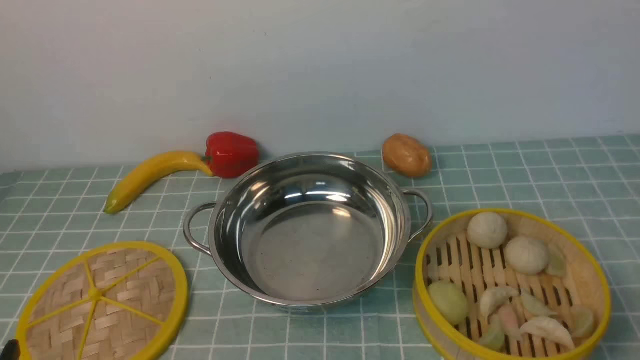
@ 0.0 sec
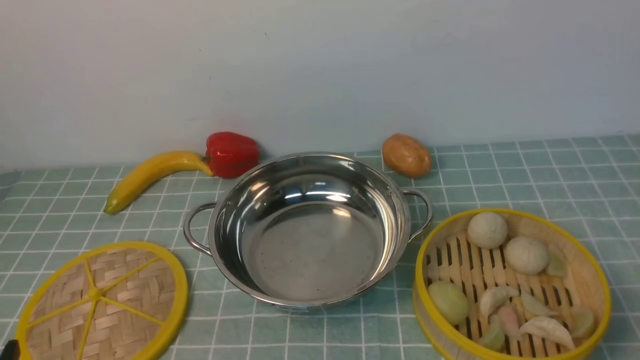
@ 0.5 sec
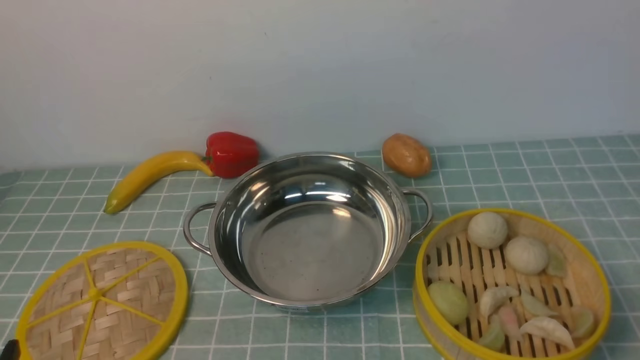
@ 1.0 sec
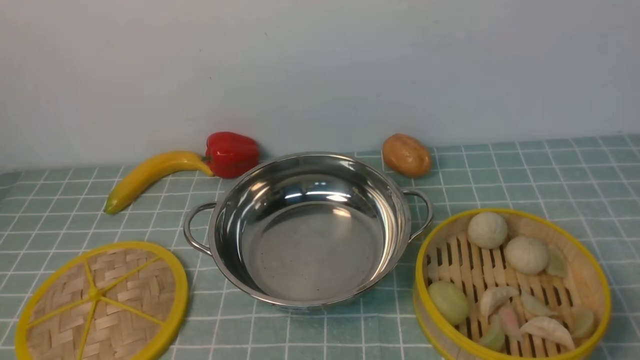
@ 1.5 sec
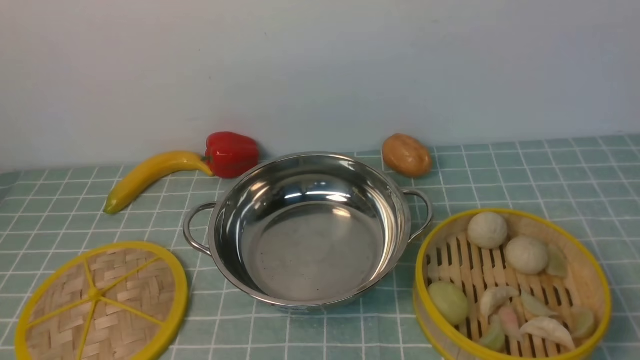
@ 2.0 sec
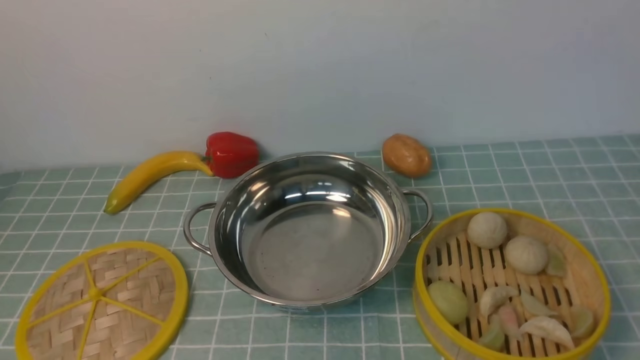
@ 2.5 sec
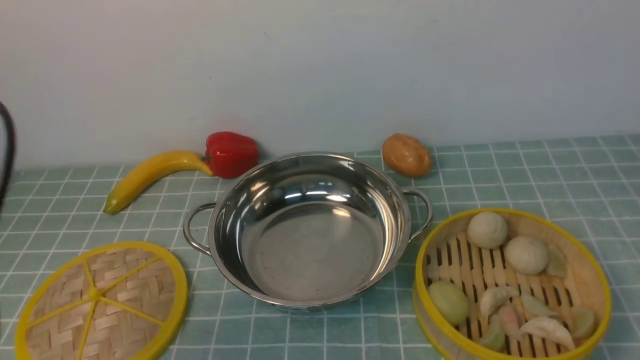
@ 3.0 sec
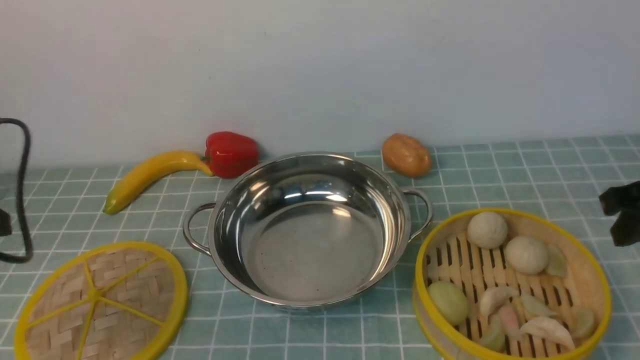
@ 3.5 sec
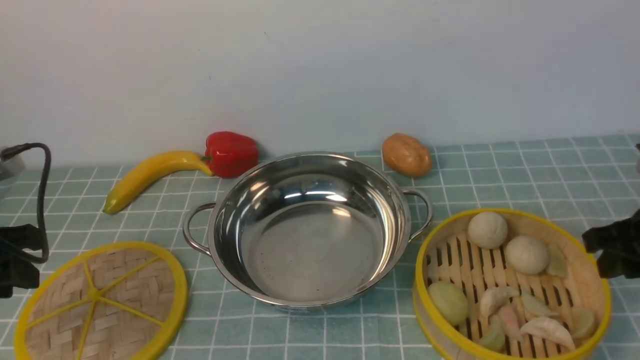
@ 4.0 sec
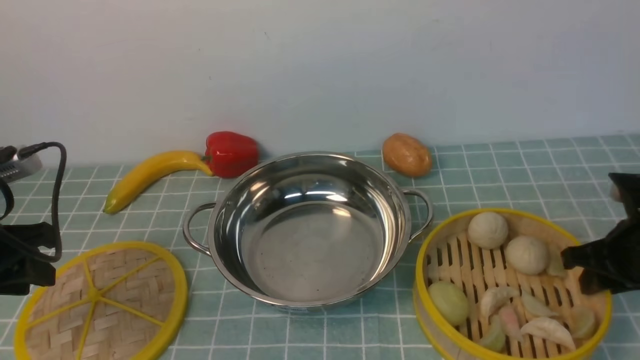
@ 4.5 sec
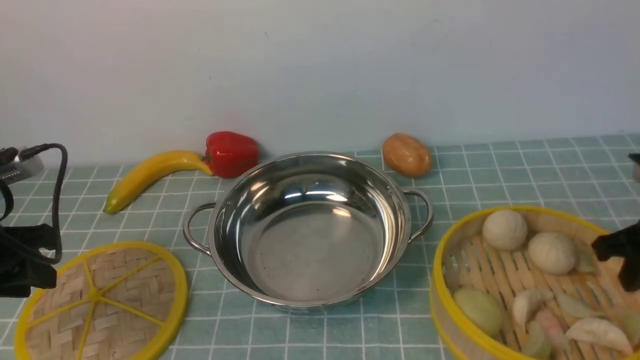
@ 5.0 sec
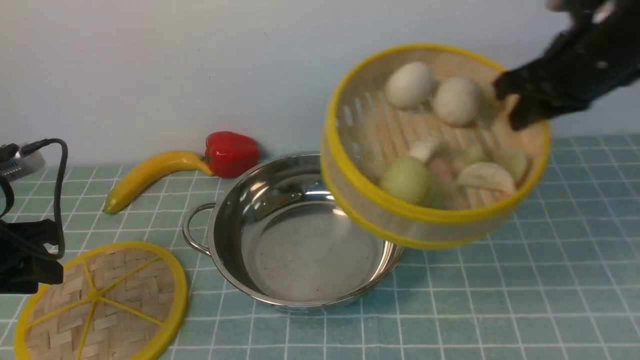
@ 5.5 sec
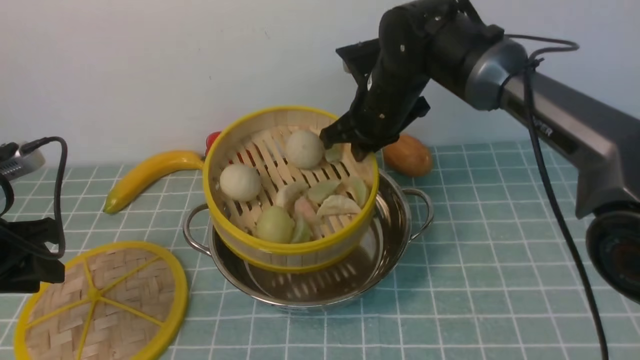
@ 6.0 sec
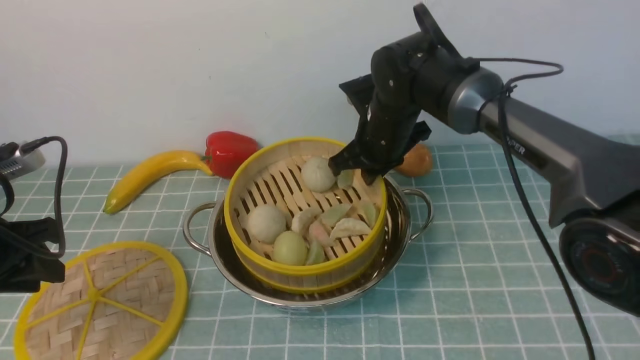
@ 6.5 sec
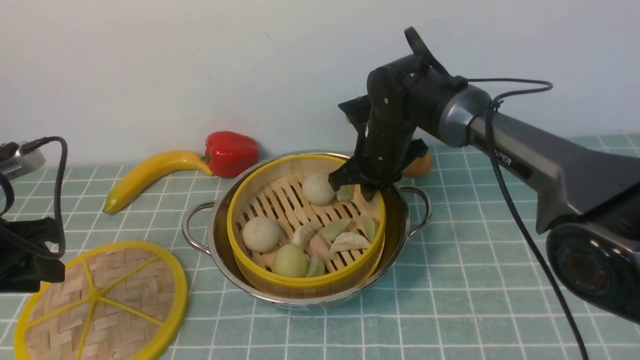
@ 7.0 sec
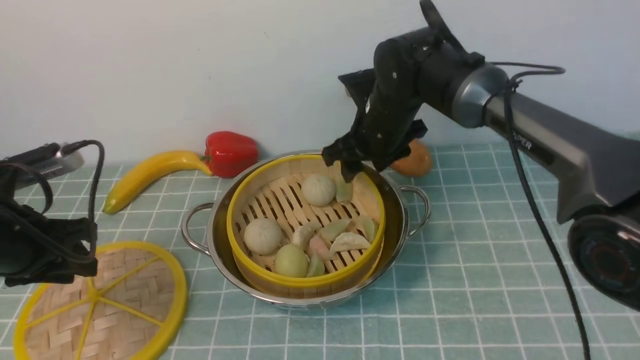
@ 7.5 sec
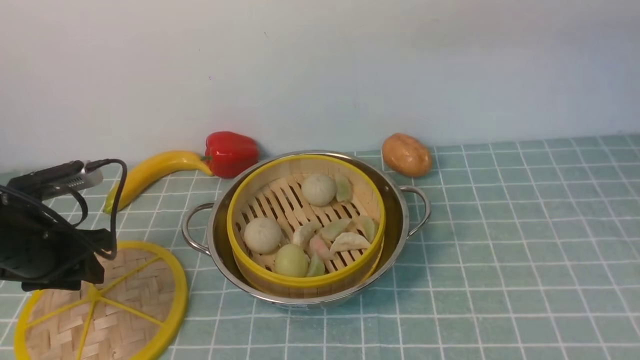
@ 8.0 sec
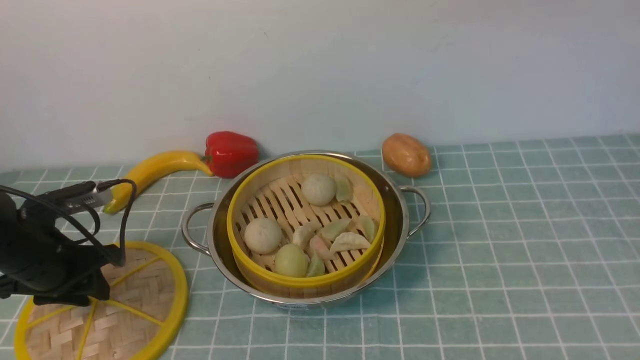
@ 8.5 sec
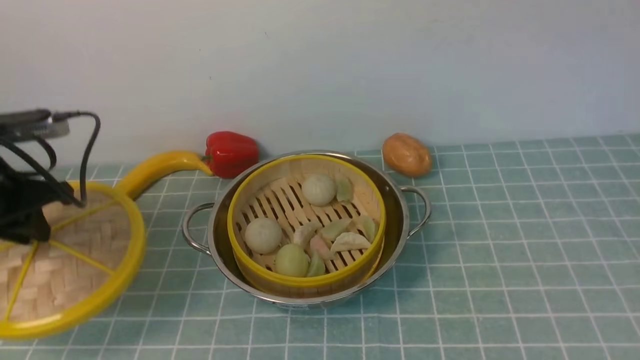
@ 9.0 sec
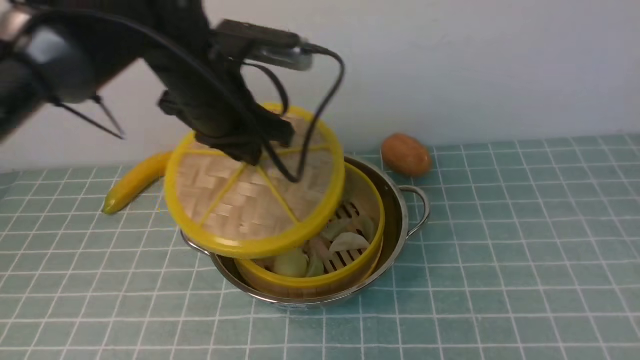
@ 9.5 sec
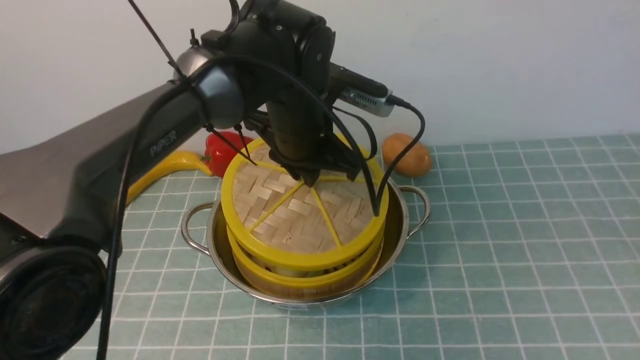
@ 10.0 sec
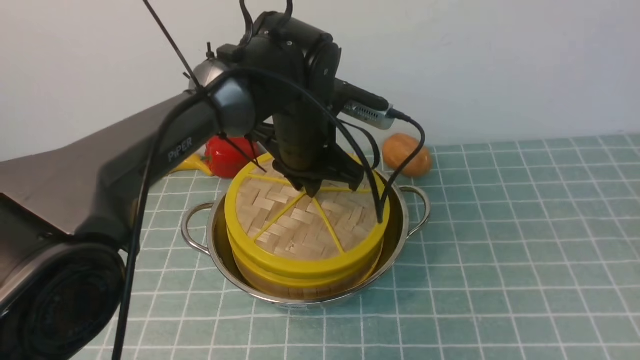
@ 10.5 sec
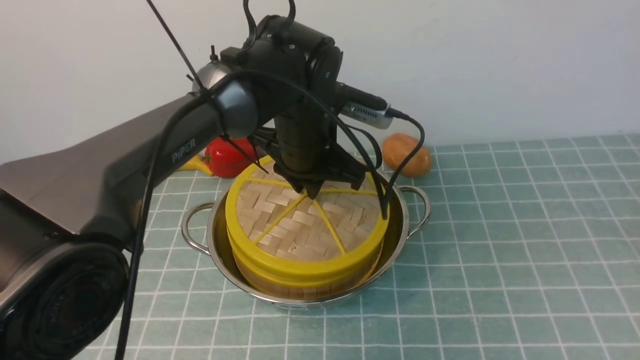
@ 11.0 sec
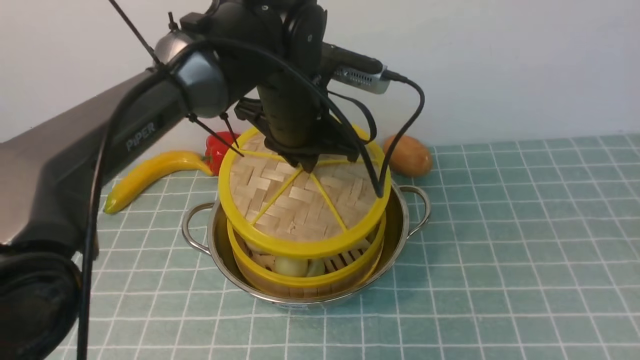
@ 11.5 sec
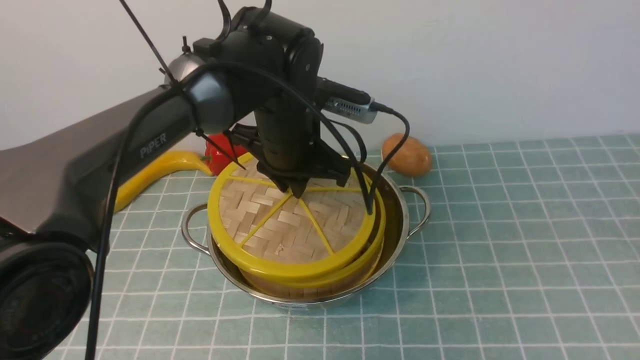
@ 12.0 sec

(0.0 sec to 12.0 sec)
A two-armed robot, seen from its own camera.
Task of the whole recording: place the steamer in the pot on the blue tablecloth, and put the lid on the steamer.
Step, 0.0 sec - 5.0 sec: use the right arm to lift the steamer closest to it.
Step, 5.5 sec - 7.5 sec: use the right arm to put the steamer into the iron steamer pot in the middle.
Step, 8.0 sec - 9.0 sec: use the left arm to lift the lid of the steamer.
2.0 sec - 4.0 sec: The right gripper goes roughly 20 cm forward. The left gripper goes roughly 20 cm forward and to the left.
4.0 sec - 6.0 sec: The right gripper is displaced to the left and forward by some 30 cm, and closes.
6.0 sec - 8.0 sec: The left gripper shifts by about 5 cm, while the right gripper is displaced upward by approximately 15 cm, and opens its fingers.
8.0 sec - 10.0 sec: The left gripper goes some 30 cm to the right, and closes its fingers, while the right gripper heads backward and to the right, covering approximately 35 cm.
10.0 sec - 12.0 sec: The grippers make only small movements.

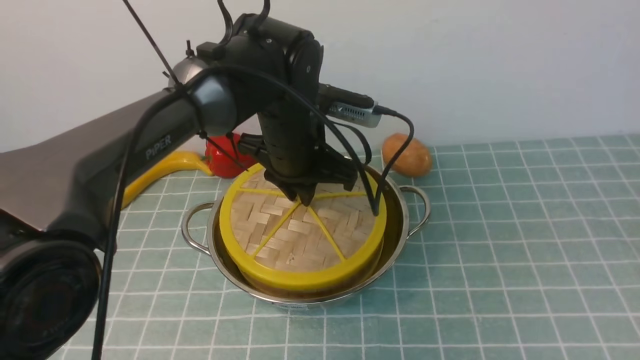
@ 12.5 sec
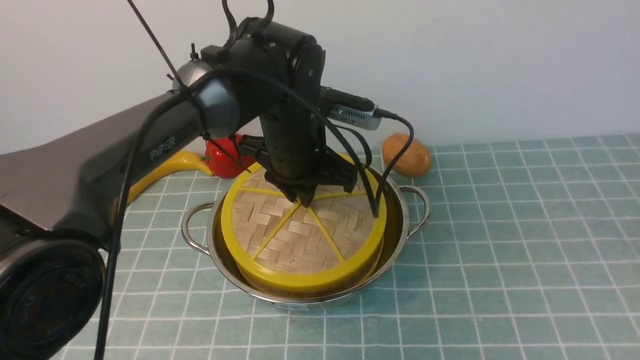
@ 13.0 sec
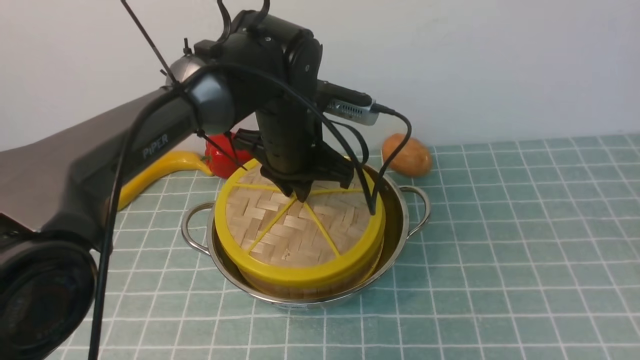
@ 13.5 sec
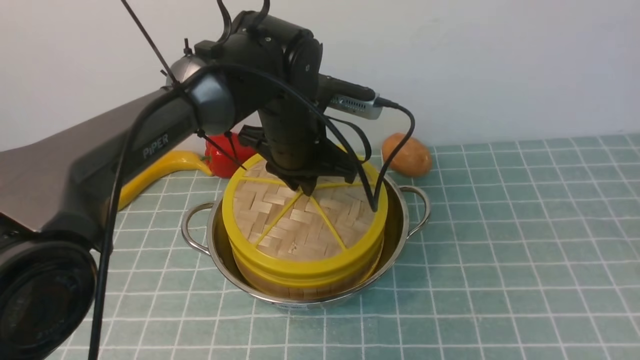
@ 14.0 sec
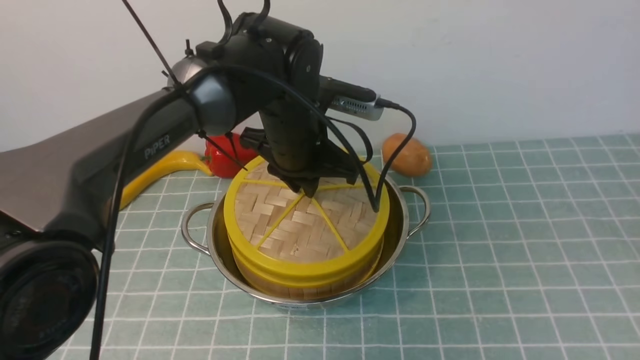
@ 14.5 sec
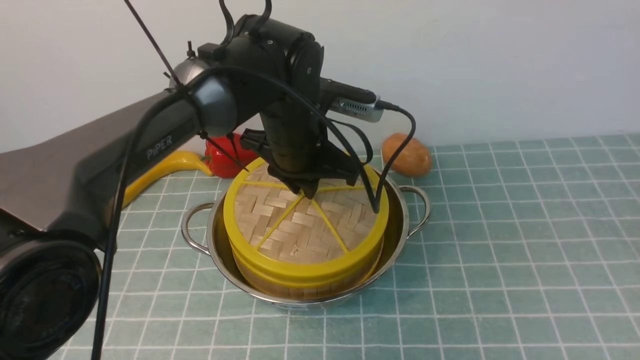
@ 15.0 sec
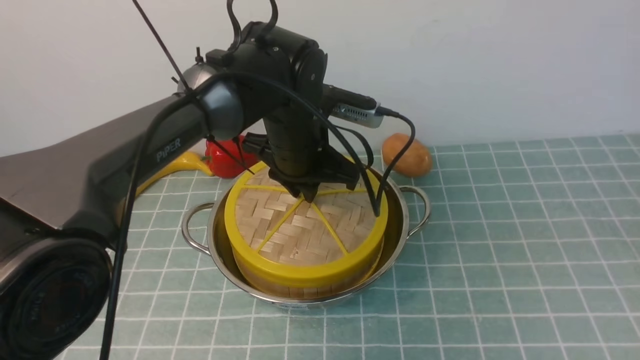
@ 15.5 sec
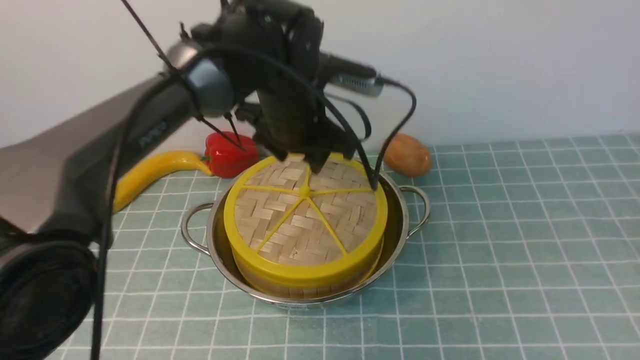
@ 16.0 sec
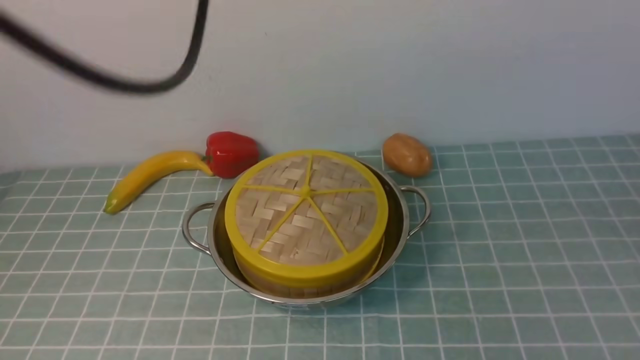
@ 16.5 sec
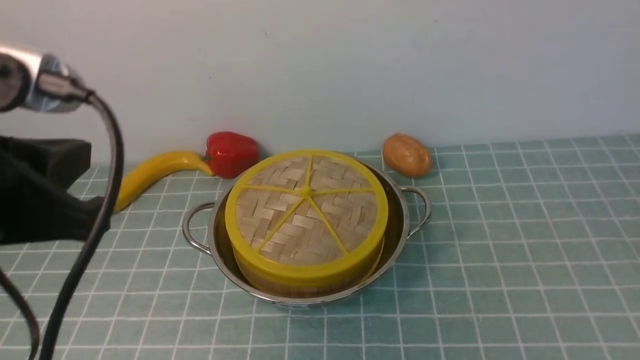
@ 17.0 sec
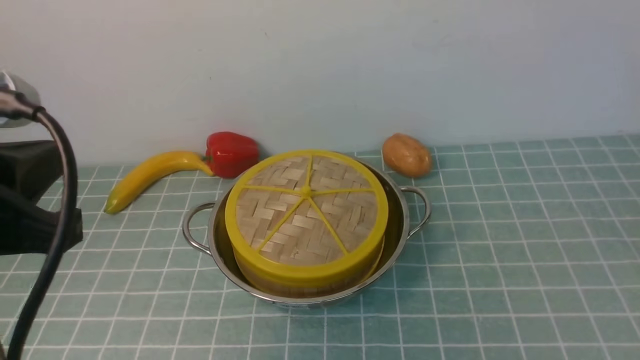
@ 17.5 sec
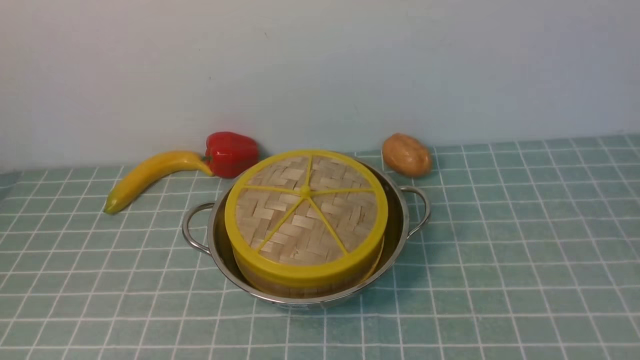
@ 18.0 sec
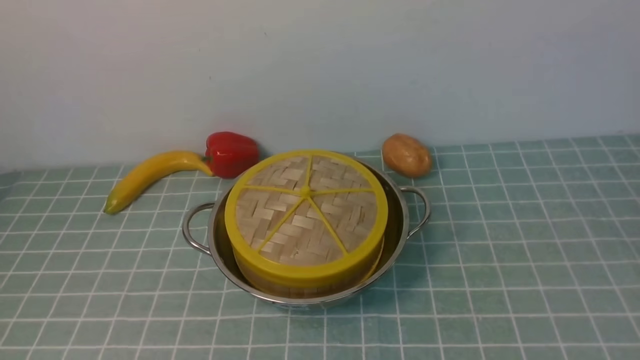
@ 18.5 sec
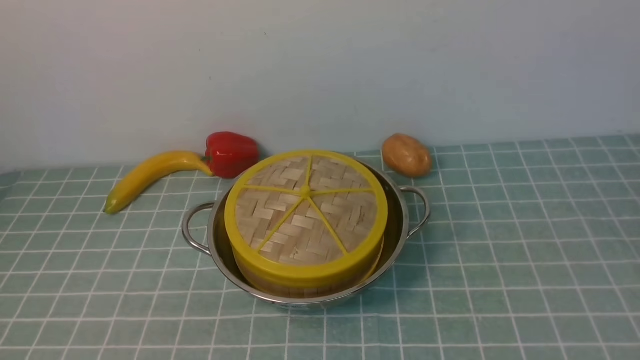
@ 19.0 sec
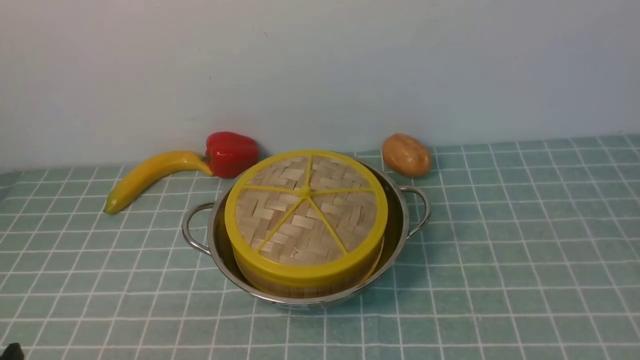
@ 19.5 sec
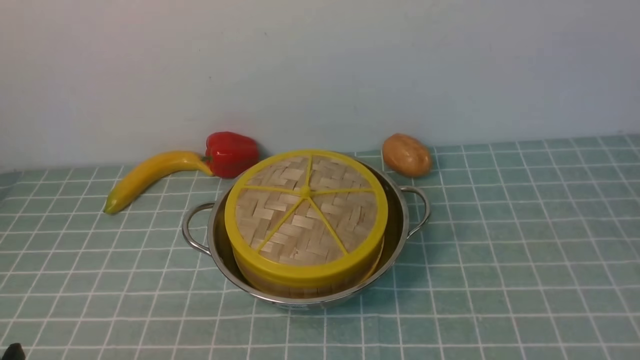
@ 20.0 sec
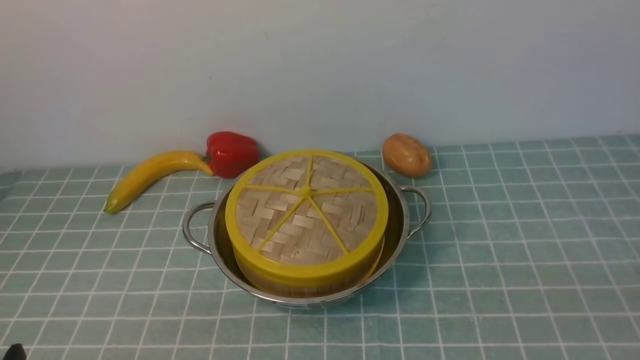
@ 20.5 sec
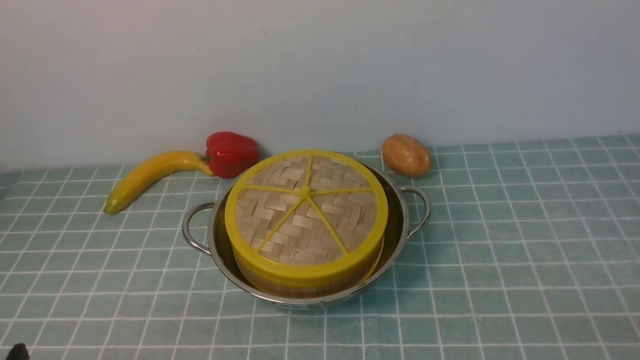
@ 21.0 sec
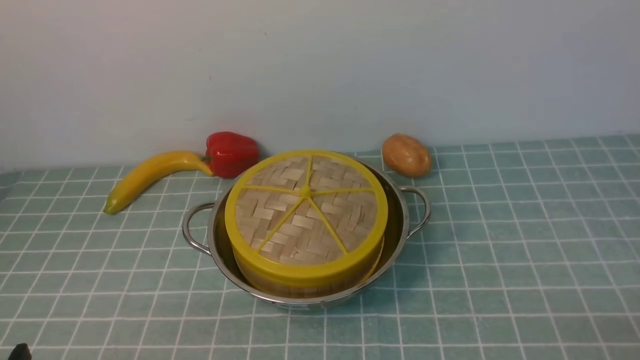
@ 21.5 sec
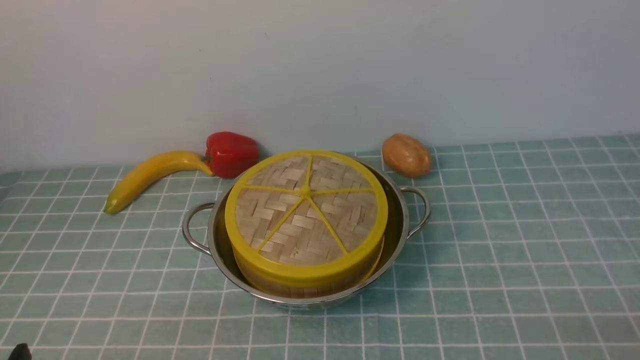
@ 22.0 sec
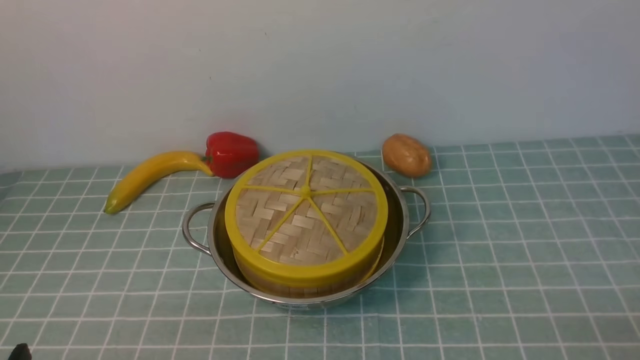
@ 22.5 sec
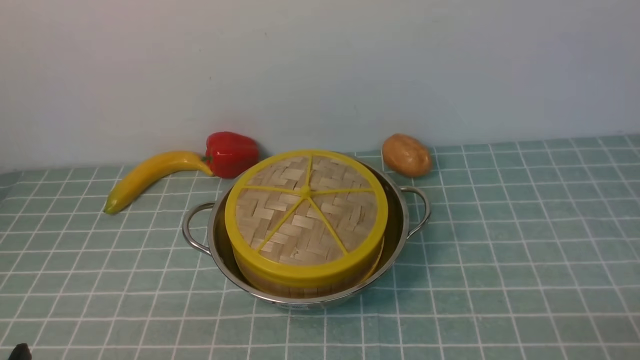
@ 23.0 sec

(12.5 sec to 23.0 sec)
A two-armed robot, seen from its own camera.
Task of the whole recording: place the steamer in the pot on the blue tablecloth, and put the lid on the steamer.
Step, 12.5 sec - 16.0 sec: use the left arm to place the steamer lid on the steamer.
12.5 sec - 14.5 sec: Both grippers stay about where they are.
14.5 sec - 16.5 sec: The left gripper is displaced upward and backward by approximately 25 cm, and opens.
16.5 sec - 19.0 sec: The left gripper is displaced downward, backward and to the left by some 40 cm, and closes.
